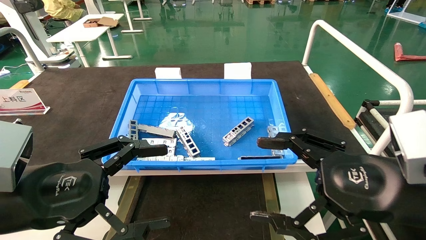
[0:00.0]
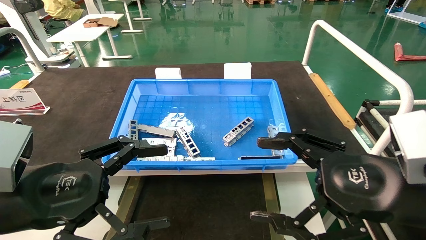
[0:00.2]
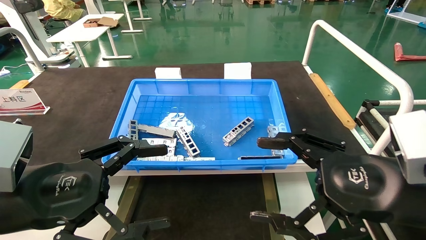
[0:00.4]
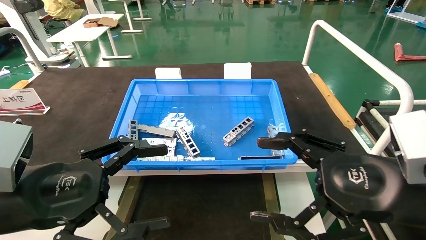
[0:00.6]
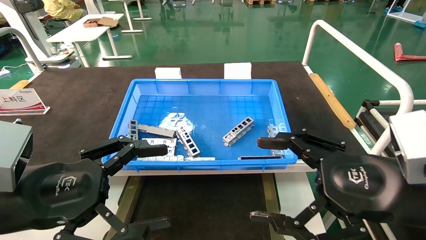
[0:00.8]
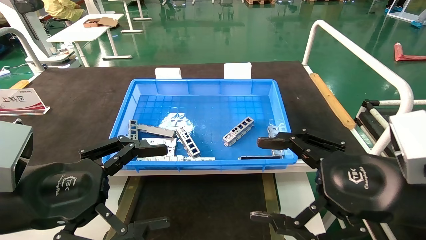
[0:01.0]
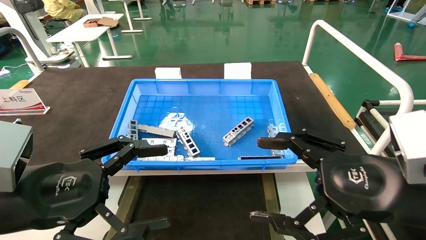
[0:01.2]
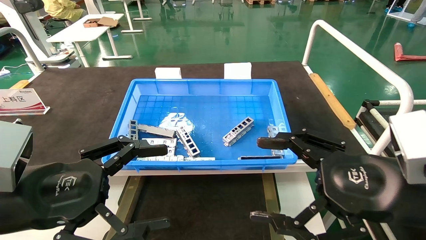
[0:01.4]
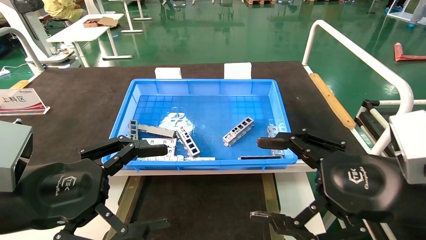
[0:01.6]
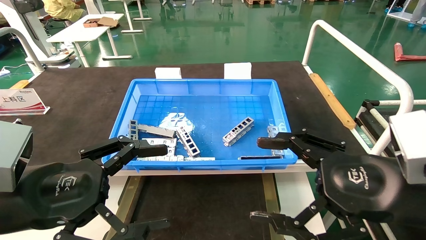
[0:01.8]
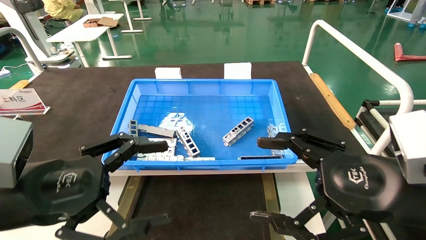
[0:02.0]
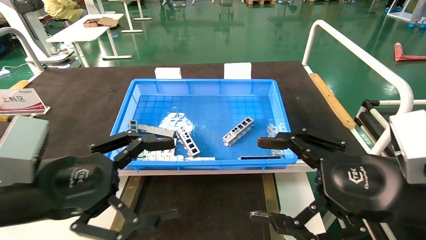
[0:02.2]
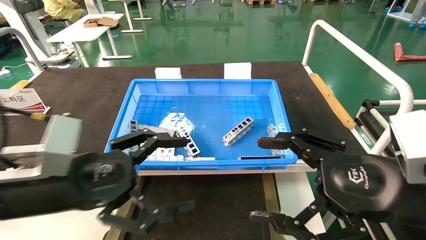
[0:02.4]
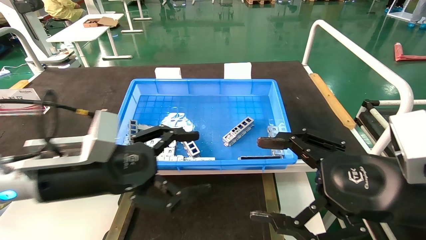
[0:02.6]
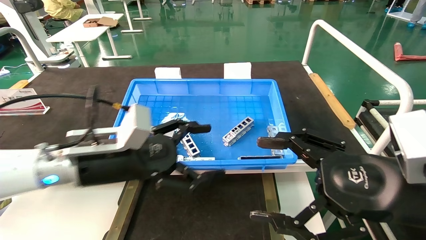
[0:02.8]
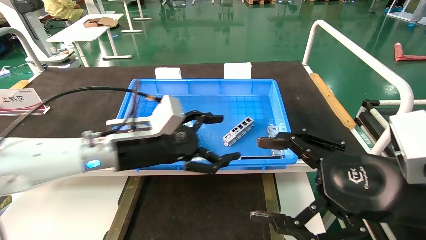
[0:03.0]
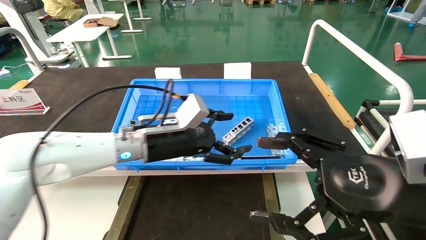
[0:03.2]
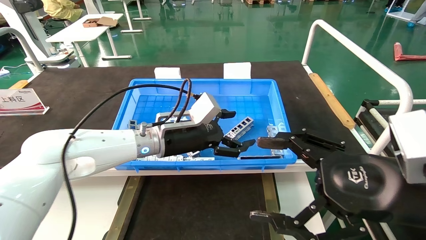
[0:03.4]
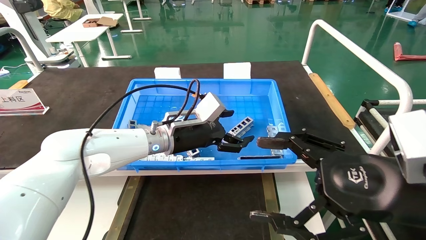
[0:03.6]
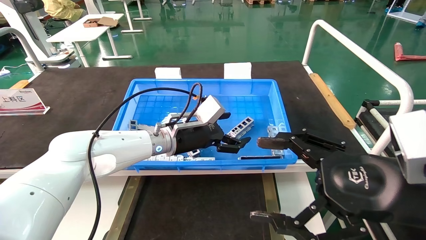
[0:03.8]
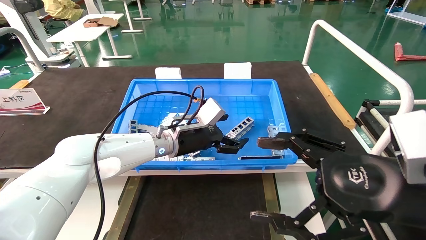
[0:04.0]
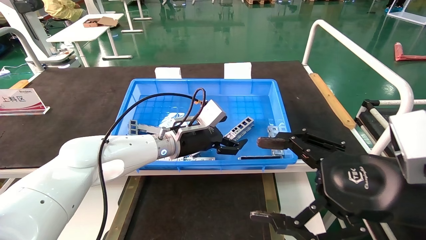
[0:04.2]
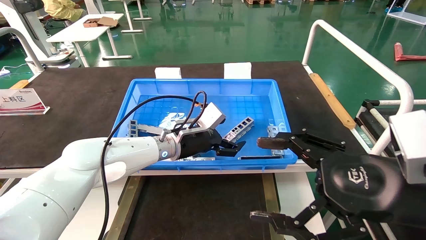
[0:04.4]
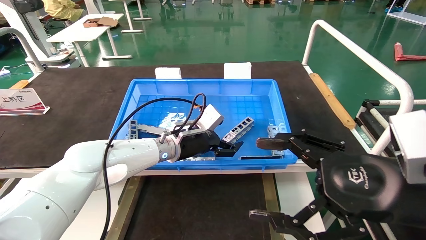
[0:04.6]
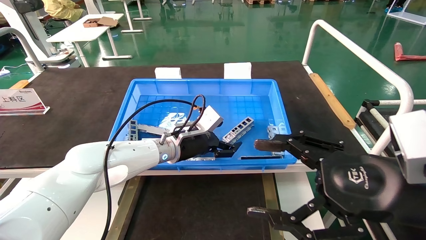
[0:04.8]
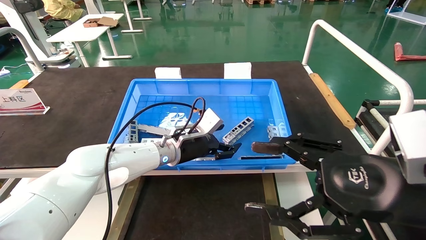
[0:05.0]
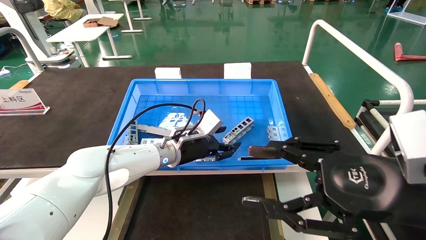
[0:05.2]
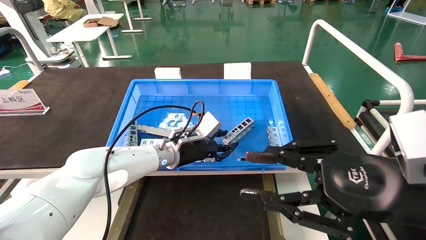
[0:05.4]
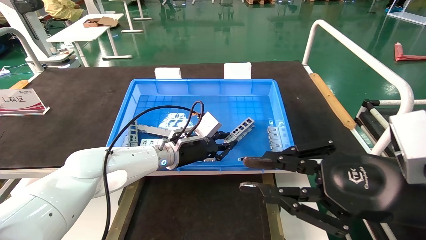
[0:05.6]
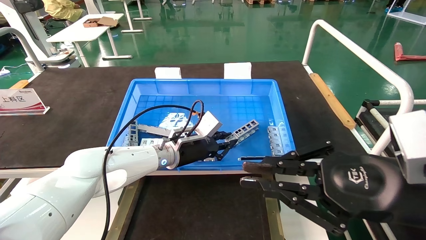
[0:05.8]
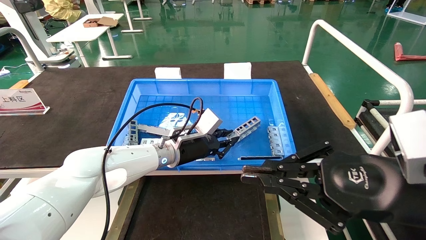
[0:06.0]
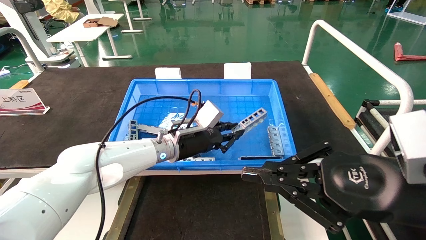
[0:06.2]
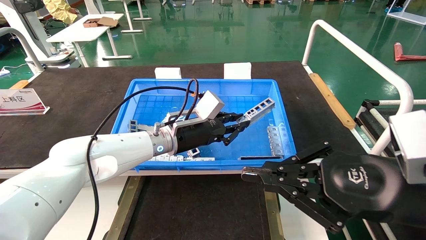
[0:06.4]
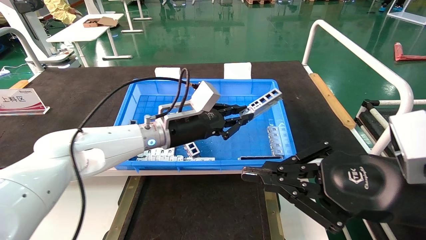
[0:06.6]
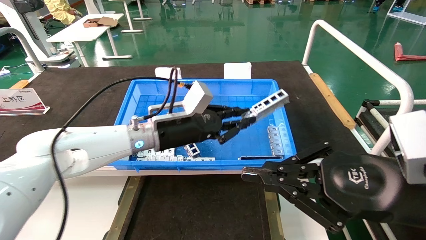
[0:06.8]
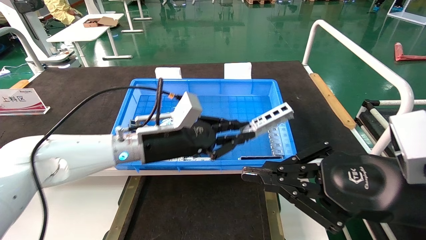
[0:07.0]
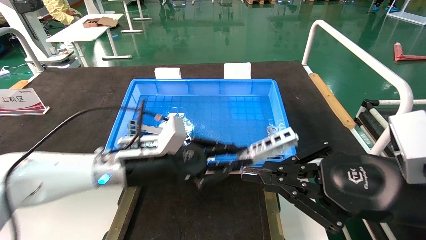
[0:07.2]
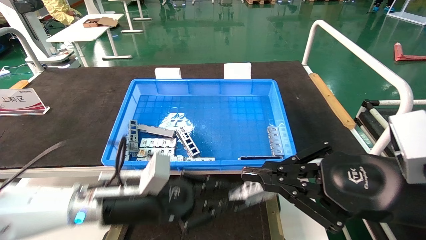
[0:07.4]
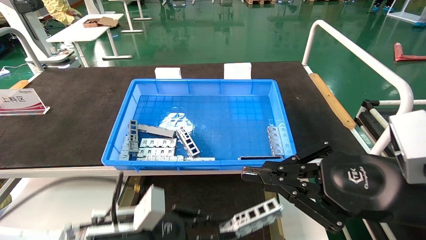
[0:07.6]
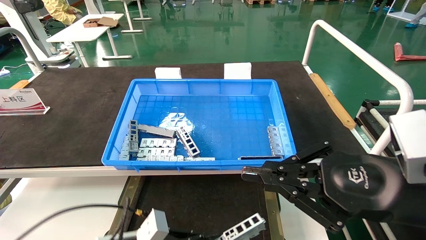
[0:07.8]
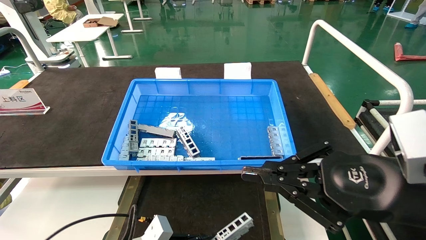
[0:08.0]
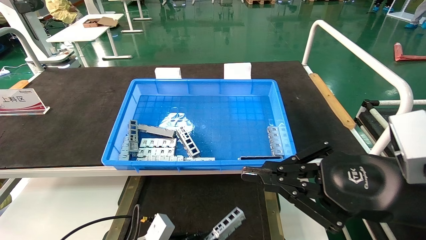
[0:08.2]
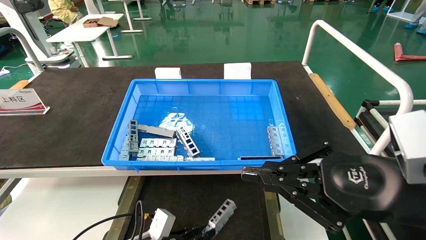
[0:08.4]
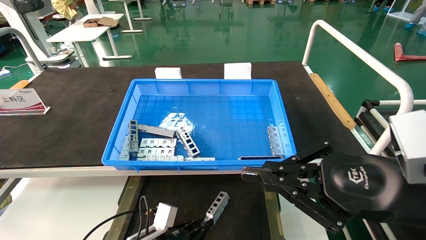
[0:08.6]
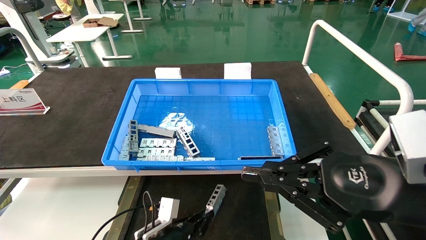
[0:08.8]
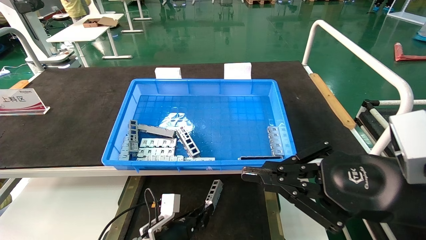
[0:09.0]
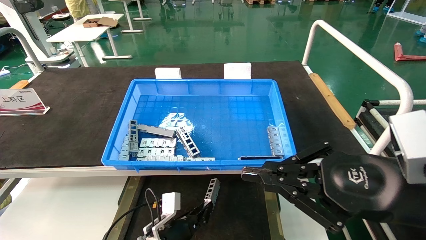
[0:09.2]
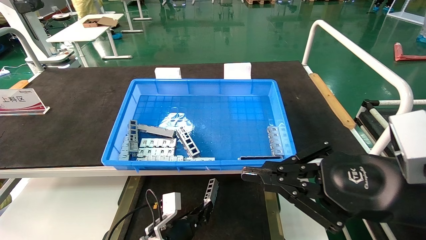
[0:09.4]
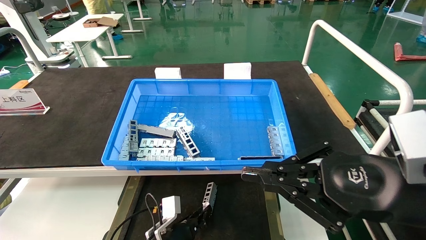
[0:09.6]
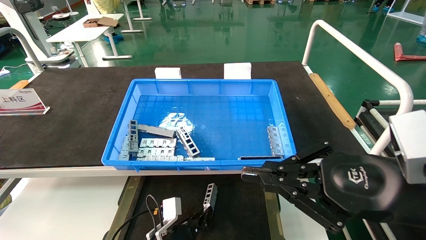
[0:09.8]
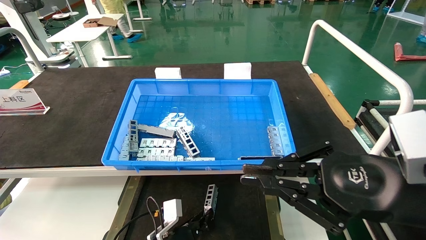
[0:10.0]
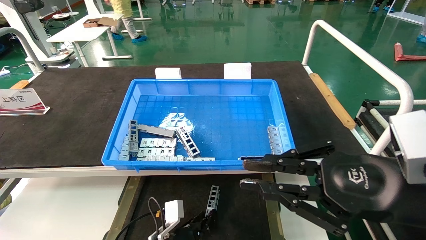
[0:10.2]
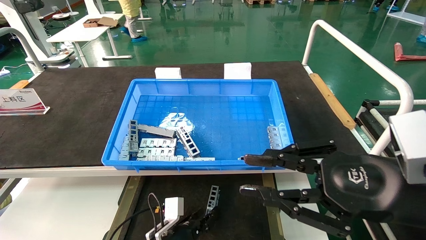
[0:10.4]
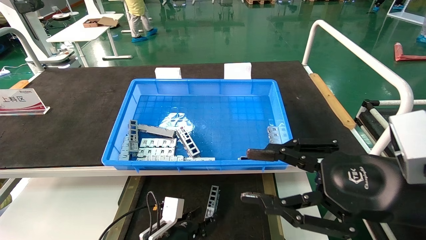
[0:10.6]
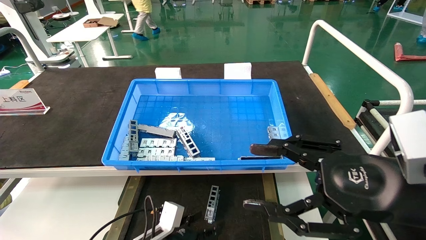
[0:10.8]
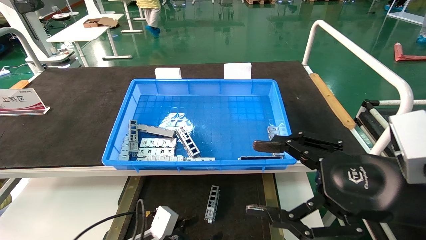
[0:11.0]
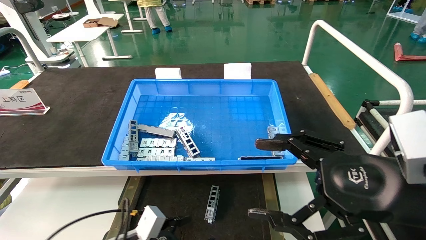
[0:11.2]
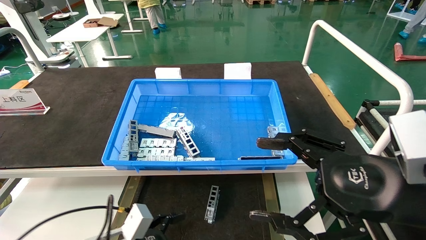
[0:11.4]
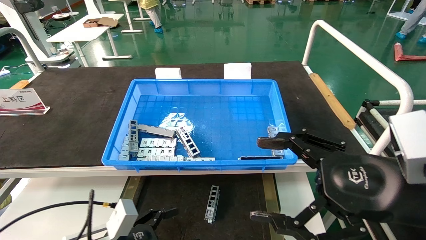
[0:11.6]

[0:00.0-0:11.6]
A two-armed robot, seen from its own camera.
Task of the whole recording: Grasp the part with one hand and place it on the black container.
Step, 0:02.4 to 0:06.4: Pick up the front USB bracket from the feeding area.
Step, 0:06.6 to 0:10.6: Place the front USB bracket into the box.
0:00.0 to 0:01.4: The two grippers keep their place.
0:01.4 to 0:02.8: The left gripper heads forward and to the right, covering approximately 15 cm.
0:02.8 to 0:04.4: The left gripper heads forward and to the right, covering some 20 cm.
0:04.4 to 0:05.8: The left gripper closes. The right gripper closes.
0:05.8 to 0:07.2: The left gripper goes about 15 cm backward and to the left.
0:07.2 to 0:08.8: The left gripper moves downward, about 25 cm.
0:08.8 to 0:10.2: There are only small adjustments of the grippers.
0:10.2 to 0:11.6: The right gripper opens up. Meanwhile the left gripper moves to the left, upward and backward, about 20 cm, and opens its fingers.

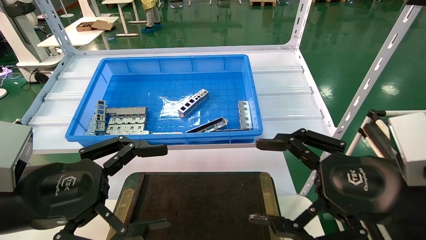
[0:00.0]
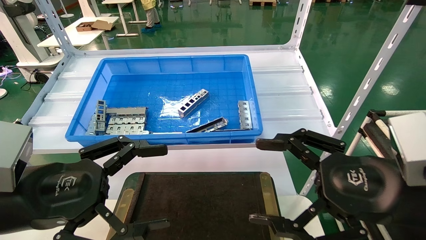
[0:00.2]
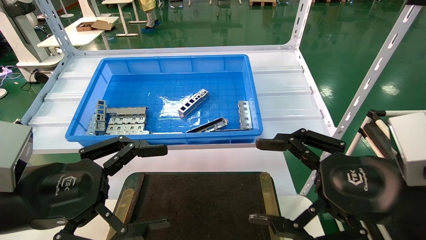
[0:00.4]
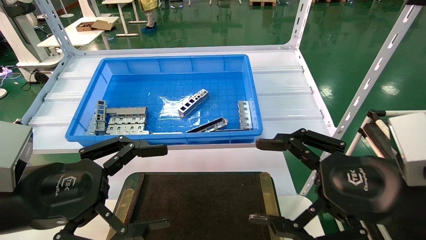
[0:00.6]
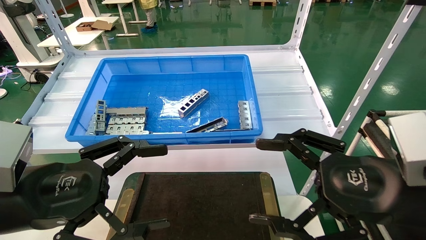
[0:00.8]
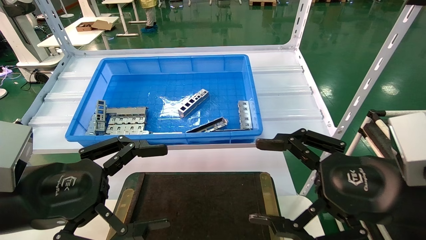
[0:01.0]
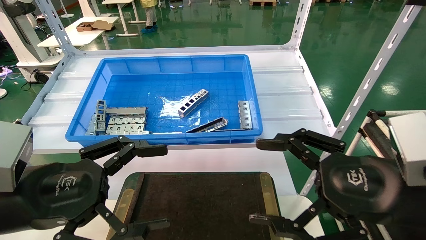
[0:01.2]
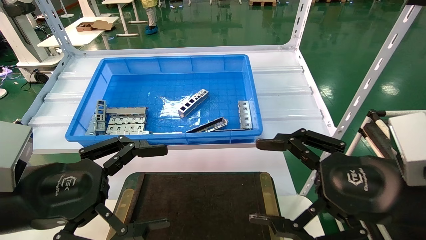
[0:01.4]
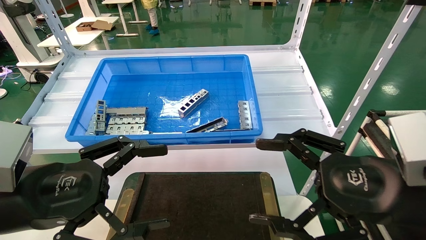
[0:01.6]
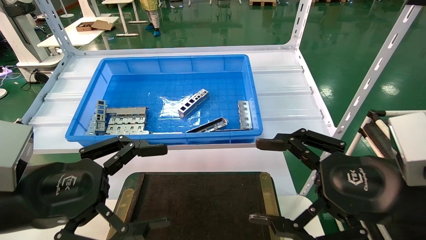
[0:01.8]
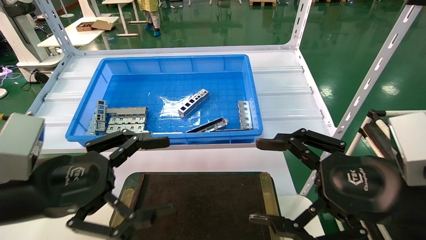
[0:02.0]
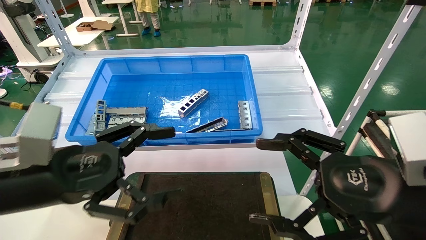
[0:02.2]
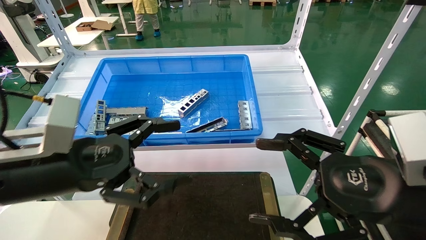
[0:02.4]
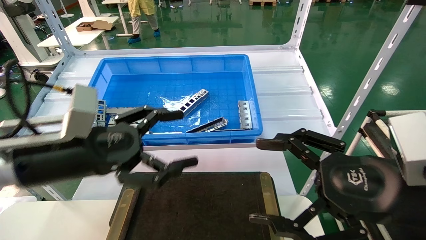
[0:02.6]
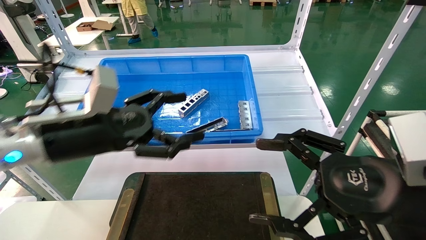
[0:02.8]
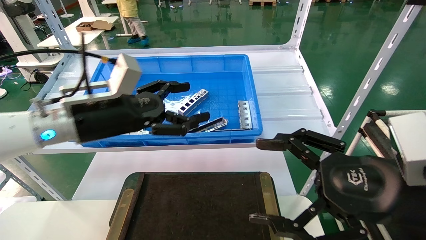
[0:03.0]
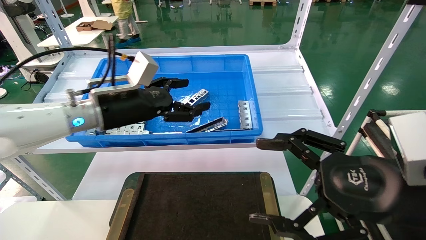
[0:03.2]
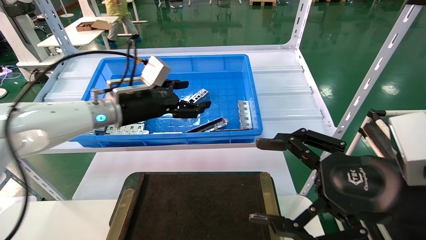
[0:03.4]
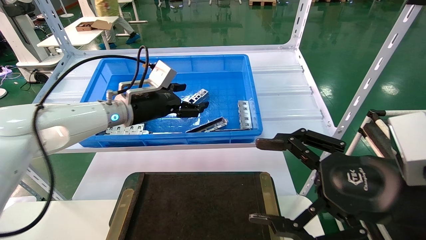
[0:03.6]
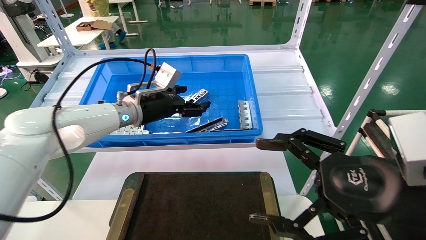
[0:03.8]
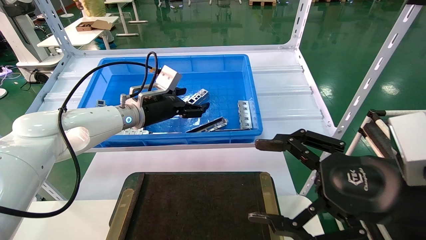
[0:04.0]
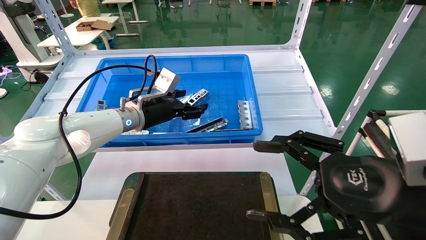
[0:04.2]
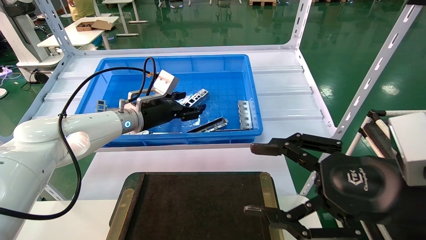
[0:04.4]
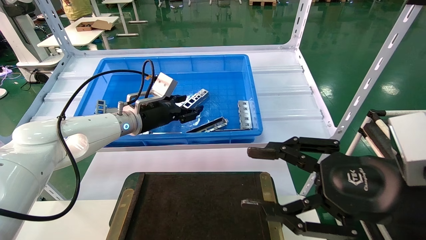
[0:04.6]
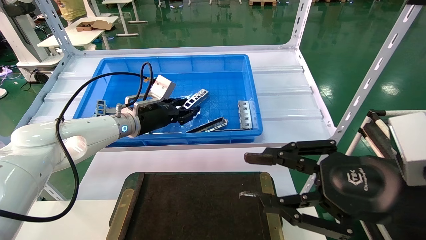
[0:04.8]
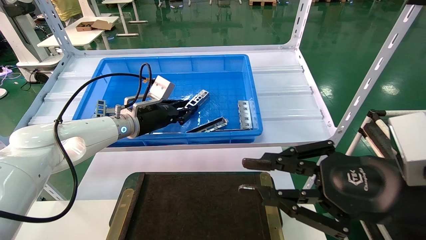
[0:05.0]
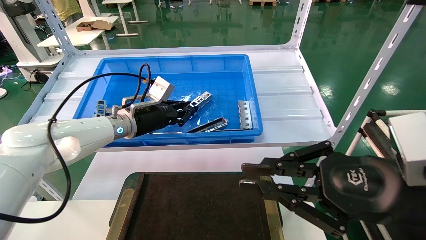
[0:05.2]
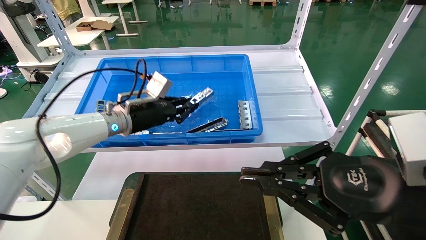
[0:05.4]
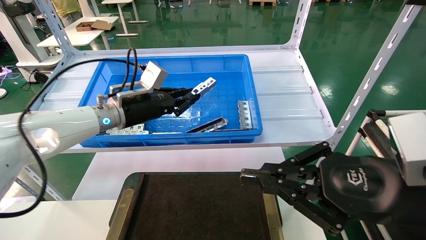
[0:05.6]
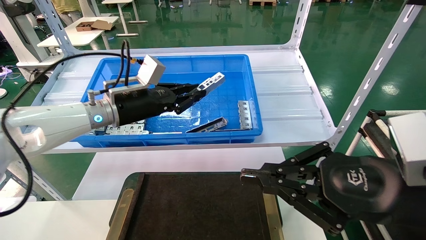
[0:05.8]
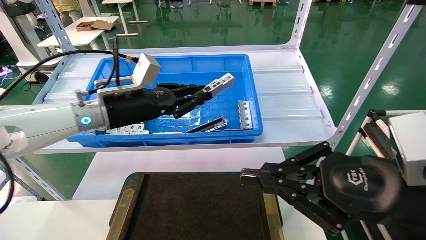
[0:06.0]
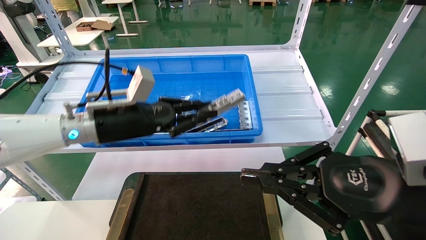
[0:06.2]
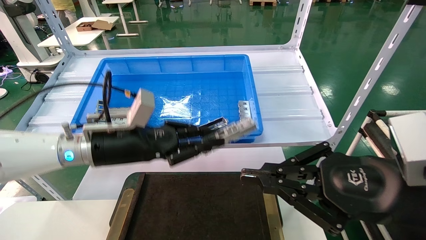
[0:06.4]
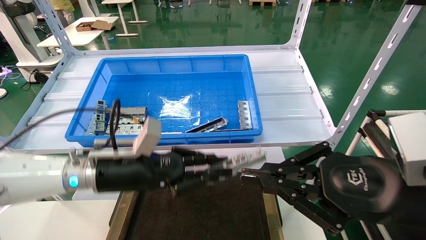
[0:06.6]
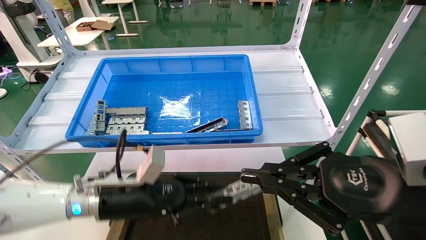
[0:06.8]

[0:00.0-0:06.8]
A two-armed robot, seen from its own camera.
Task of the whole recording: Grasp the part with one hand and place it on the black container.
Step, 0:02.0 to 0:05.0: Pick up the front USB bracket from the feeding area.
0:00.0 to 0:01.4: The two grippers keep their place.
0:01.4 to 0:02.8: The left gripper travels forward by some 10 cm.
0:02.8 to 0:04.0: The left gripper heads forward, covering about 20 cm.
0:04.0 to 0:05.4: The right gripper closes. Meanwhile the left gripper closes up.
0:05.4 to 0:06.8: The left gripper moves backward and downward, about 20 cm.
